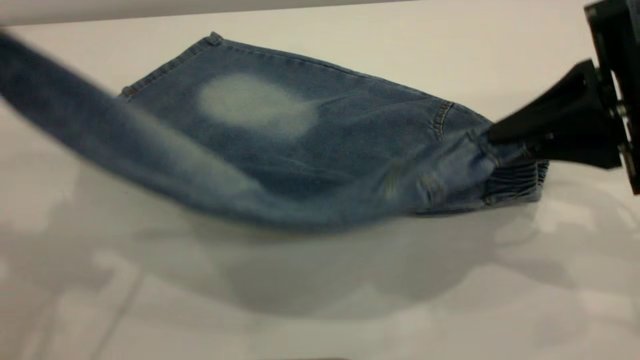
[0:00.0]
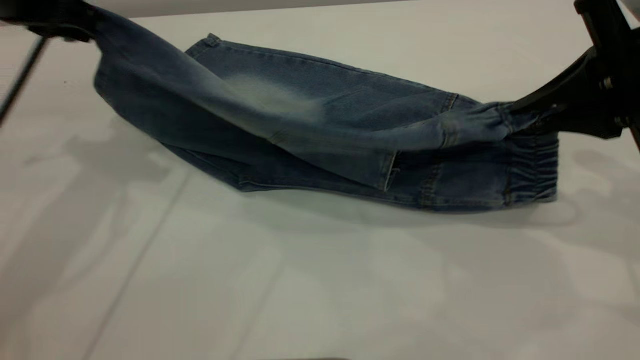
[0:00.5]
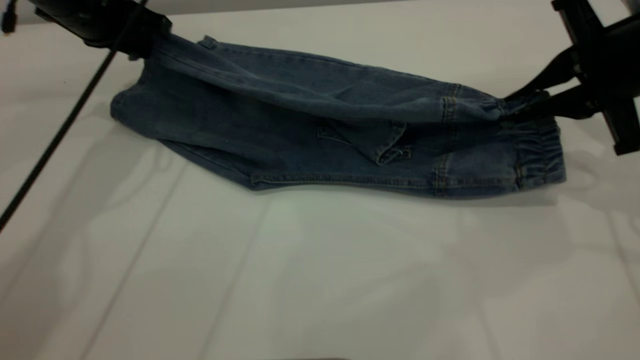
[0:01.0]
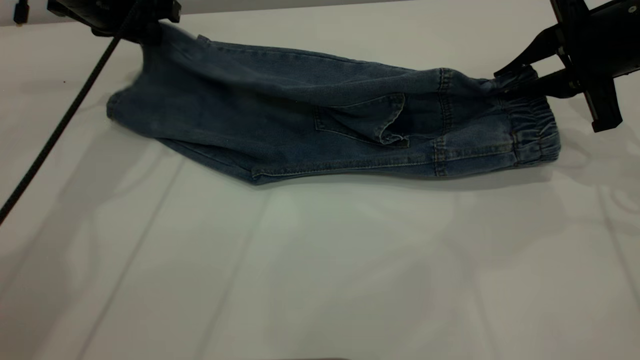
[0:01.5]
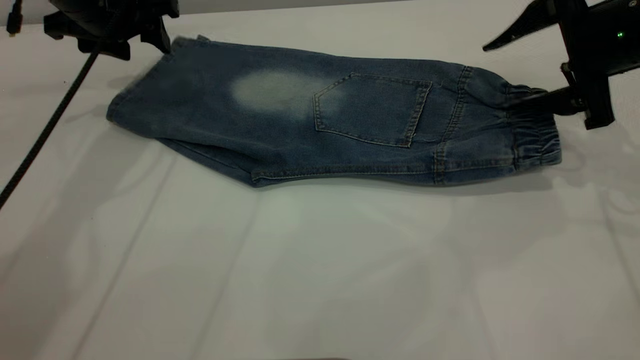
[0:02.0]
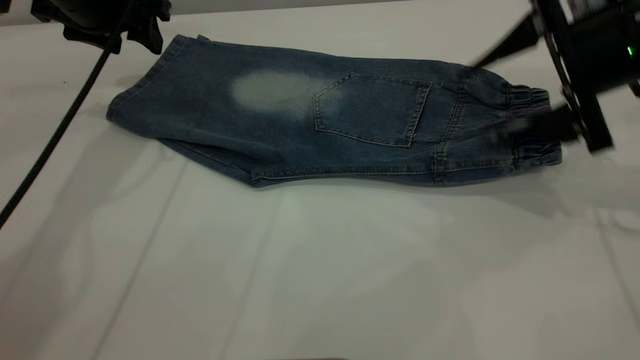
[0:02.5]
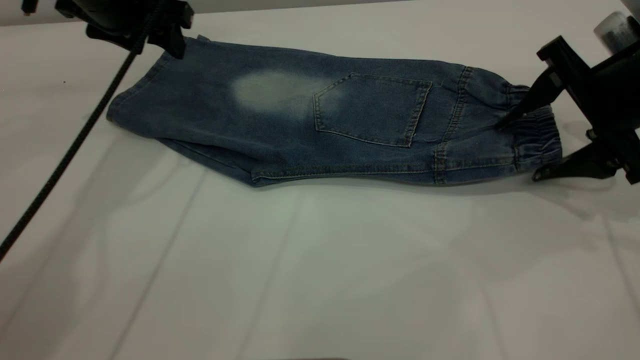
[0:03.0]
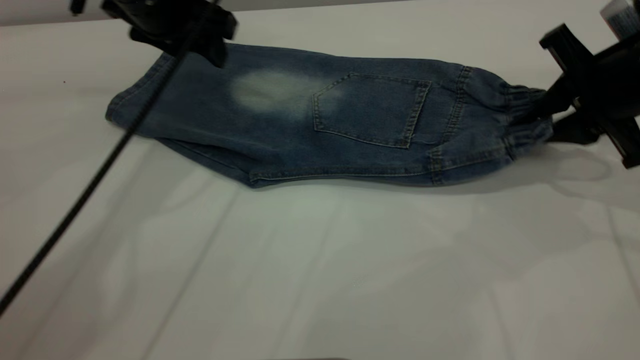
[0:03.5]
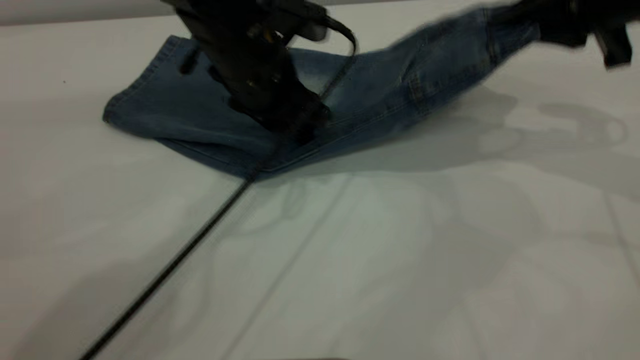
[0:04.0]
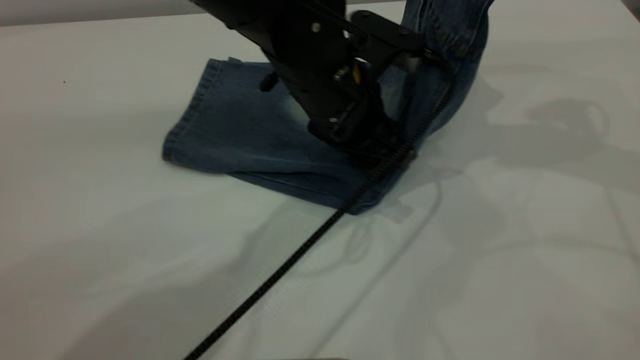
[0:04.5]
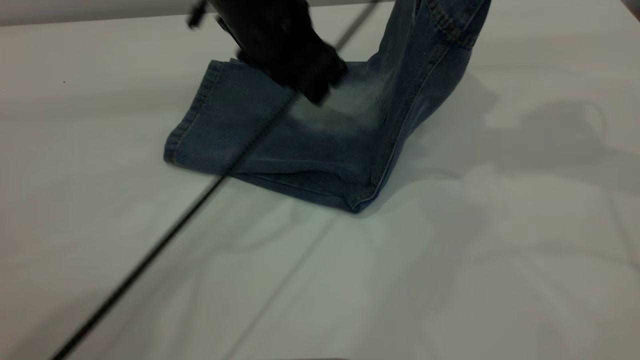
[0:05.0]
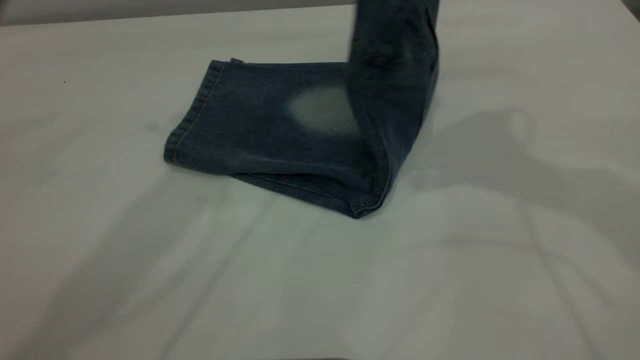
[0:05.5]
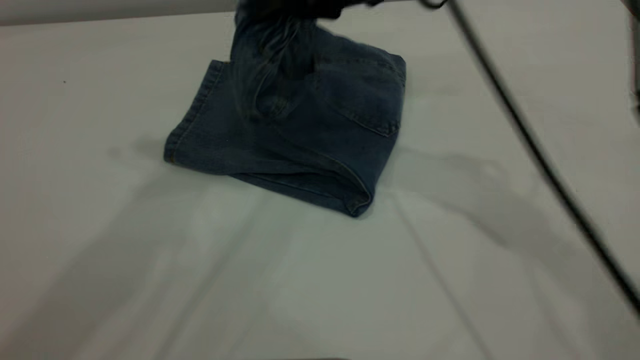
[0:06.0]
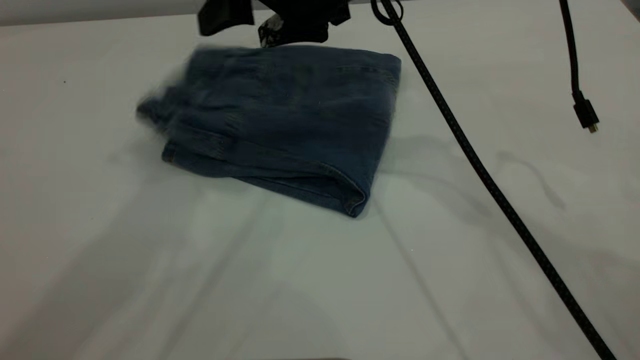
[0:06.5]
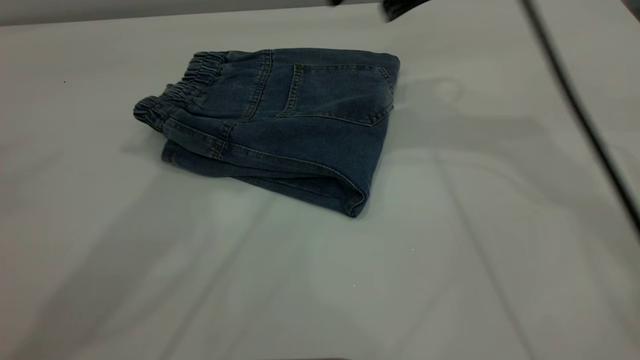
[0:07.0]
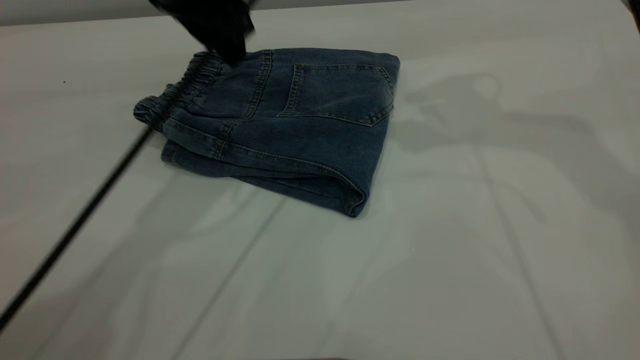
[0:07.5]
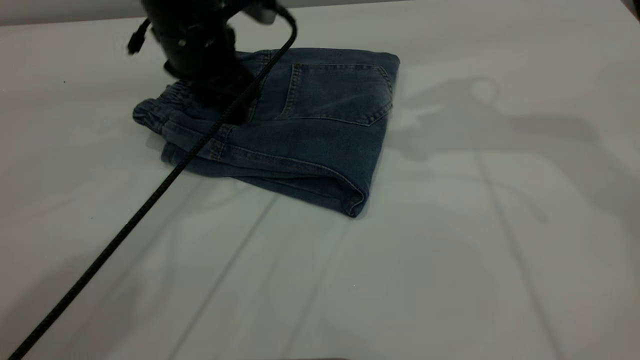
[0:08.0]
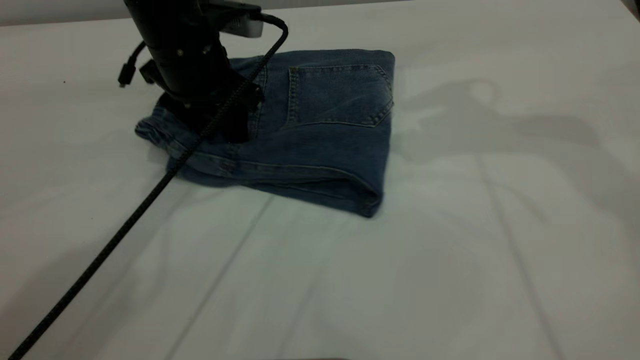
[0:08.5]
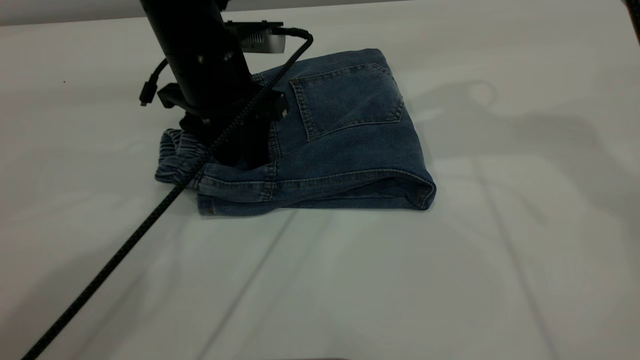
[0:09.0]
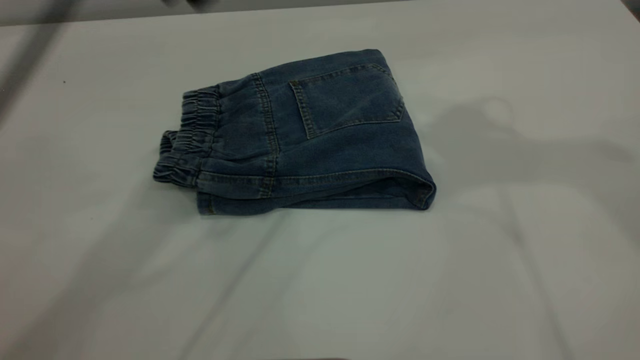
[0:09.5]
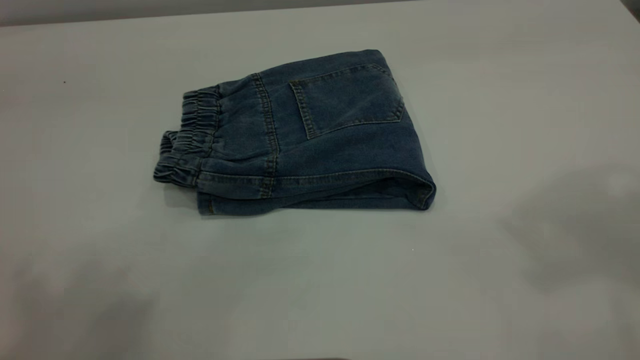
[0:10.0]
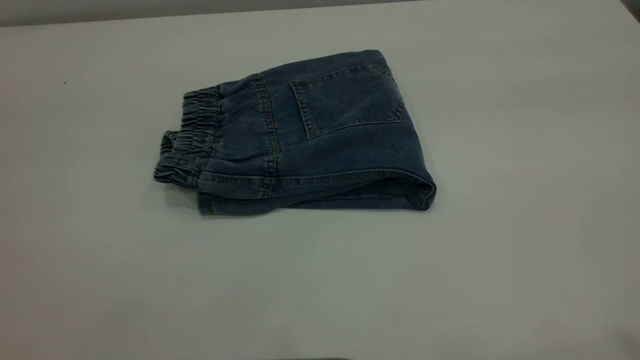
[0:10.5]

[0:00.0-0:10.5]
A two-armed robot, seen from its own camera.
Step, 0:00.0 to 0:02.0: Fold the bottom of the pants upward.
Step, 0:02.5 to 0:06.5: Fold your pants from right to left.
0:00.0 to 0:02.0: The right gripper is displaced forward by some 10 cm, and opens. Meanwhile the left gripper travels forward and downward by some 25 cm, and opens its fingers.
0:02.0 to 0:04.0: The left gripper shifts about 20 cm to the right and backward. The right gripper shifts roughly 5 cm upward, and closes up.
0:04.0 to 0:06.5: The left gripper heads upward, covering some 35 cm, while the right gripper heads to the left, covering some 25 cm, and opens.
0:06.5 to 0:08.5: The left gripper shifts about 30 cm downward. Meanwhile the right gripper heads to the right and upward, covering approximately 15 cm.
0:08.5 to 0:10.5: The right gripper shifts roughly 35 cm backward and upward; the left gripper is displaced upward and backward by some 50 cm.
